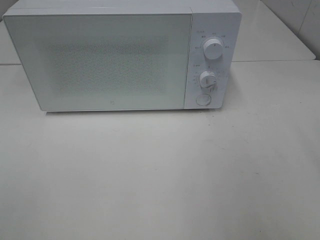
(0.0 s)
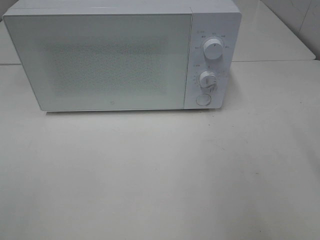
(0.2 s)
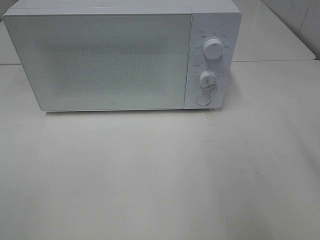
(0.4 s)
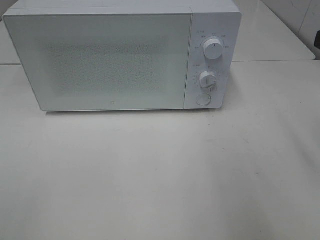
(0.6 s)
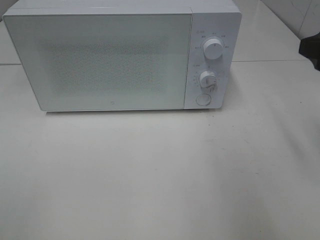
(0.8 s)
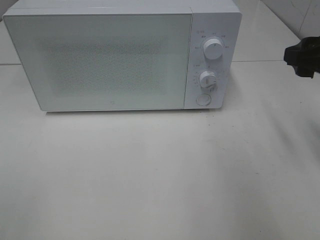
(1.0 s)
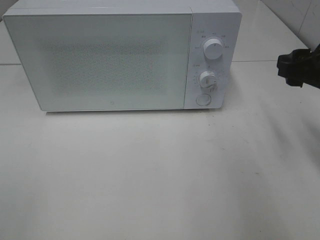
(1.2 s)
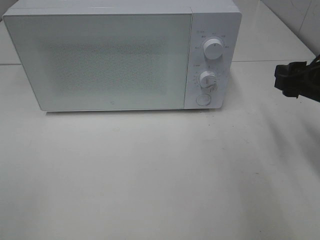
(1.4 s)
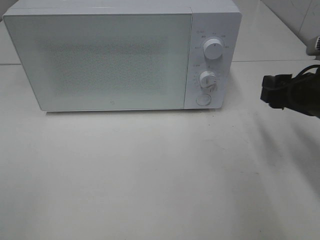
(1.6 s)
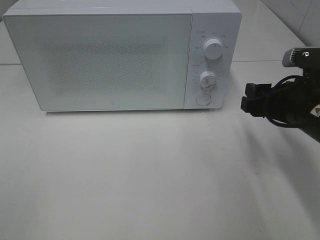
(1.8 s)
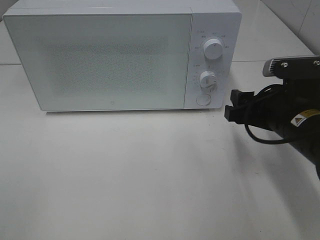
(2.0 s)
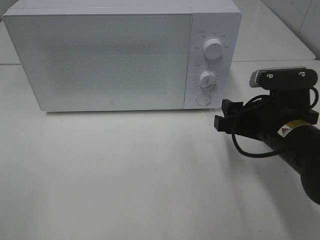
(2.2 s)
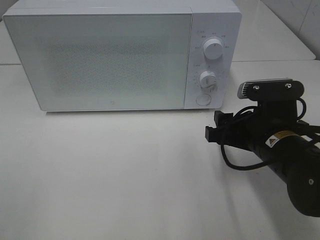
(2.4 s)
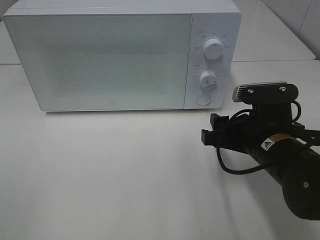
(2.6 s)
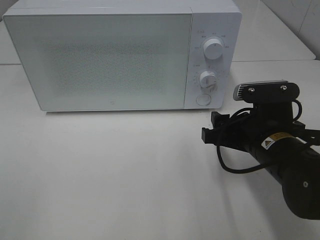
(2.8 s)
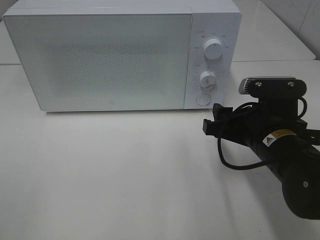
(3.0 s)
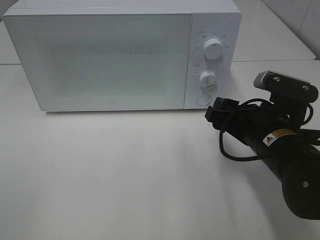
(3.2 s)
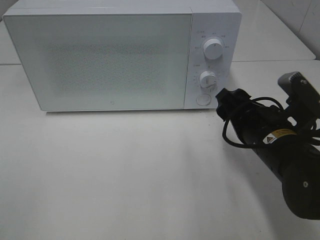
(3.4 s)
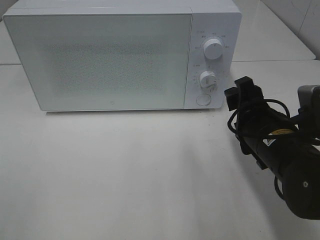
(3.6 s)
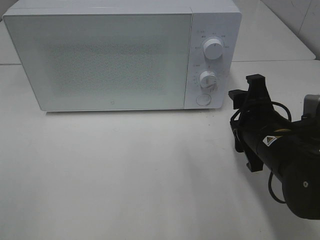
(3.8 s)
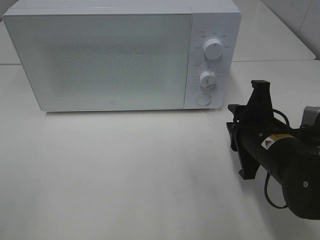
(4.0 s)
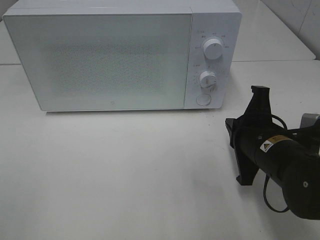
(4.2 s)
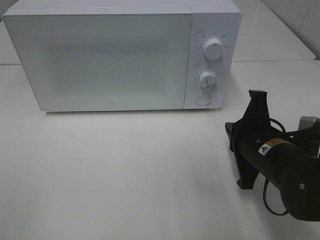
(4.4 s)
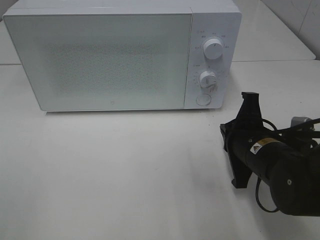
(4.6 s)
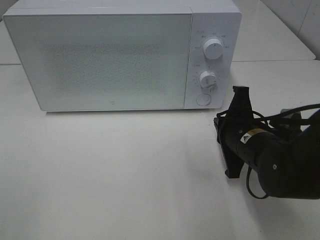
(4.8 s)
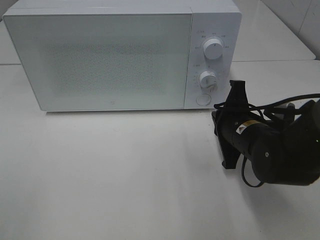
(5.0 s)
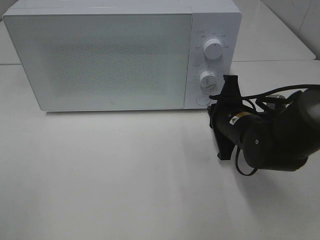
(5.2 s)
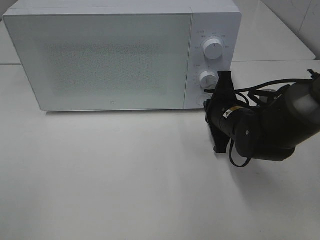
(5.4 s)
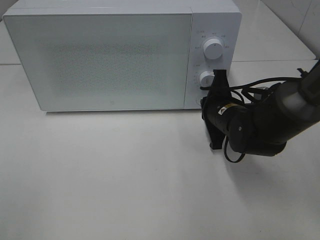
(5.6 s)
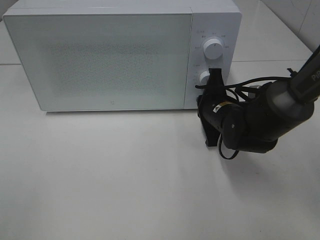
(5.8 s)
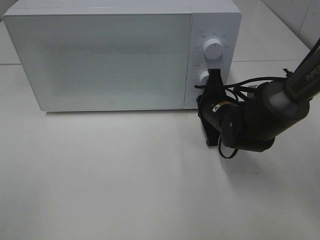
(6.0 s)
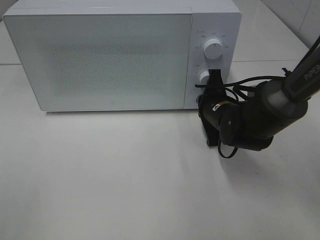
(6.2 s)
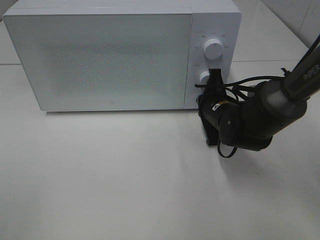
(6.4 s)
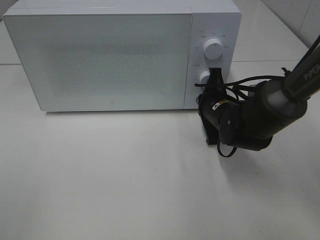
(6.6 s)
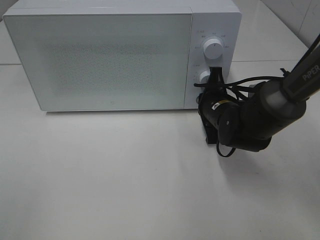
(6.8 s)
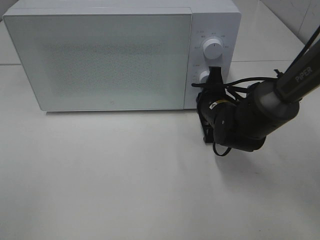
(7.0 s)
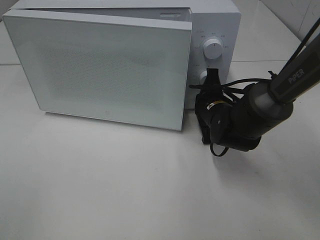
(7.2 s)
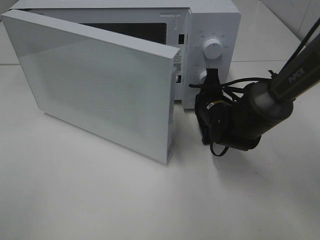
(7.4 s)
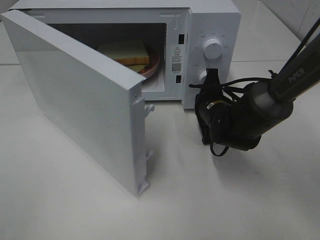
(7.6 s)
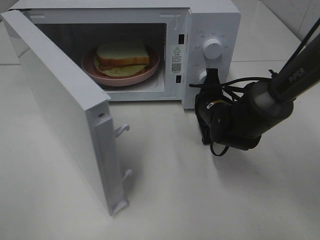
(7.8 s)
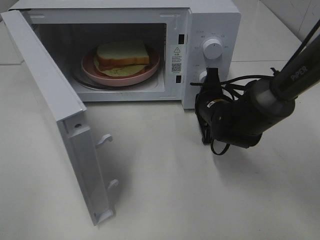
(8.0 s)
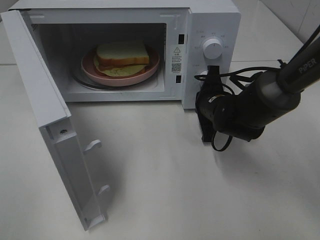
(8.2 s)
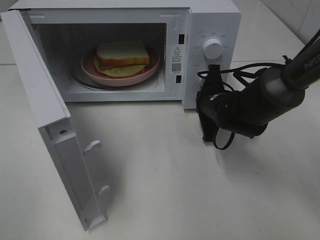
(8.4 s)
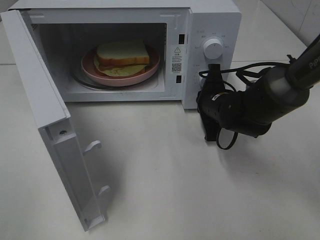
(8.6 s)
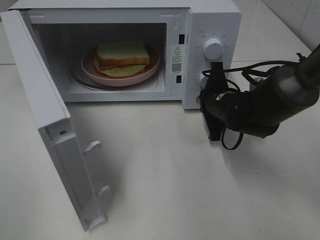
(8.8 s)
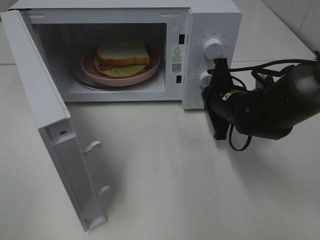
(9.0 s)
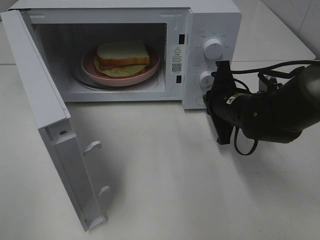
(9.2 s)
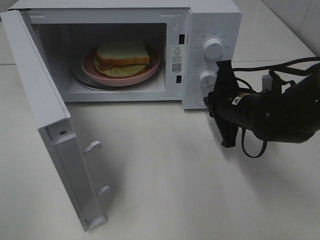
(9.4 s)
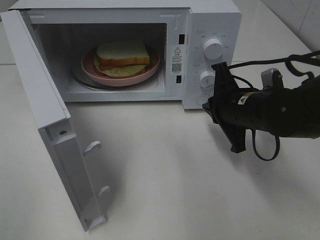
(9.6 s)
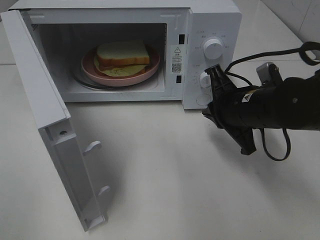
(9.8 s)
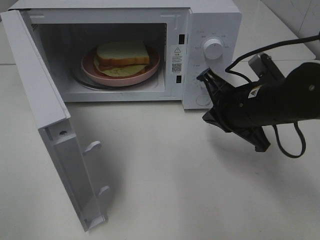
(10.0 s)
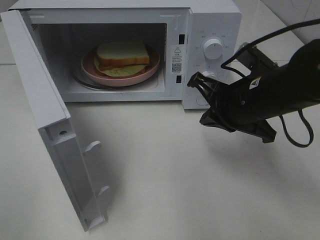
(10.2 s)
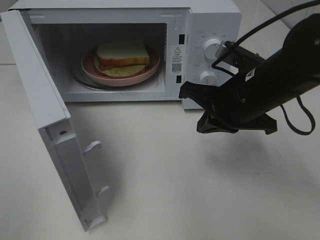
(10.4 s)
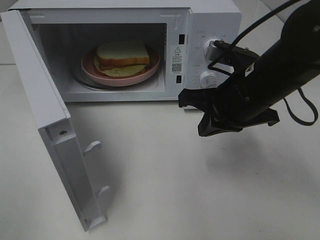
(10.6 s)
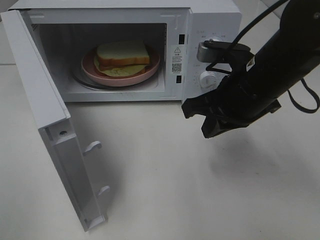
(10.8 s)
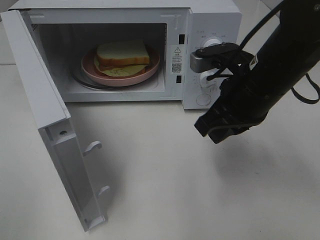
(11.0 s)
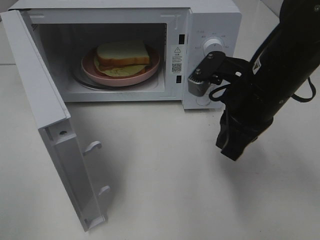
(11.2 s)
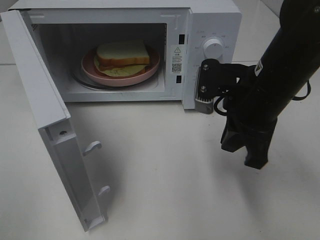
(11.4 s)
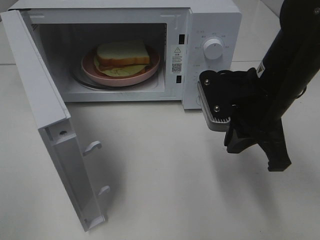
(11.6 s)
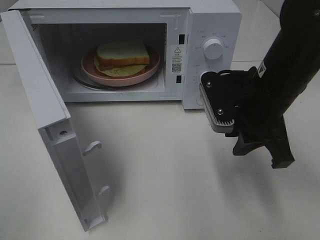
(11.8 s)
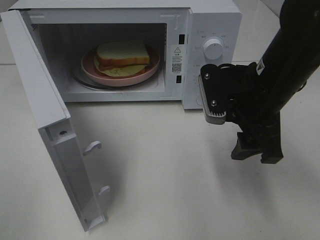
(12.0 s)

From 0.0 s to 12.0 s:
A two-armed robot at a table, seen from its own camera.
Task of the whole recording: Heat Sandwich.
Step, from 0.0 s to 9.4 s: Right hand: press the switch.
From 0.0 s to 1.6 s: The right gripper goes roughly 20 cm downward and forward.
From 1.6 s to 3.0 s: The right gripper travels to the left by some 10 cm.
From 3.0 s to 4.4 s: The right gripper closes.
From 4.4 s to 6.0 s: The right gripper heads forward, covering roughly 10 cm.
From 9.0 s to 10.4 s: The right gripper shifts about 10 cm upward and backward.
From 10.4 s to 12.0 s: The right gripper opens its fingers.

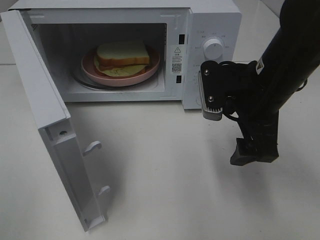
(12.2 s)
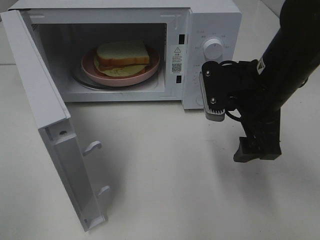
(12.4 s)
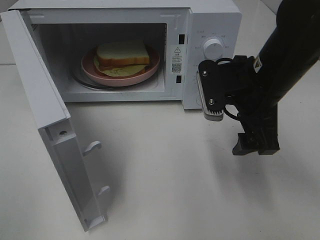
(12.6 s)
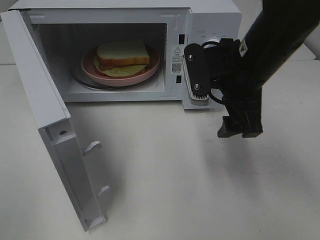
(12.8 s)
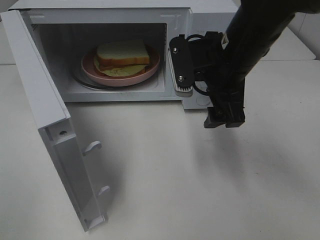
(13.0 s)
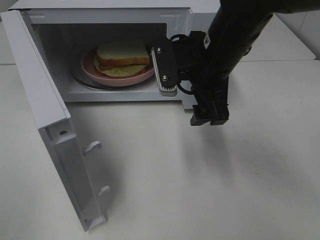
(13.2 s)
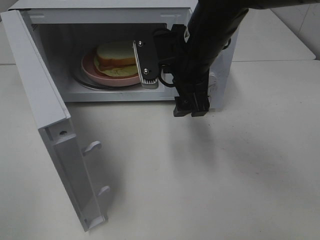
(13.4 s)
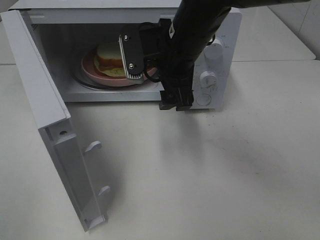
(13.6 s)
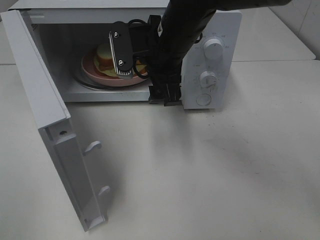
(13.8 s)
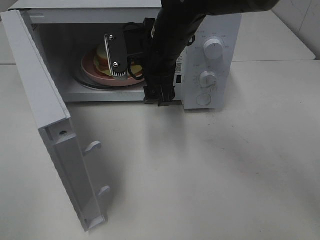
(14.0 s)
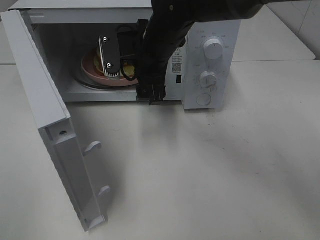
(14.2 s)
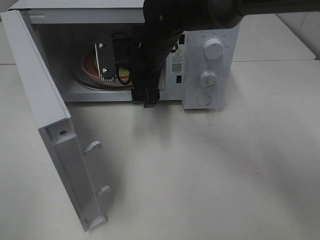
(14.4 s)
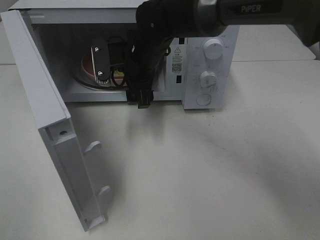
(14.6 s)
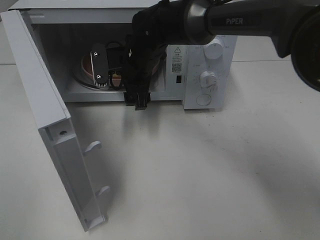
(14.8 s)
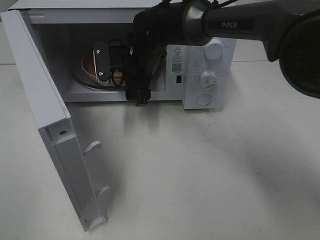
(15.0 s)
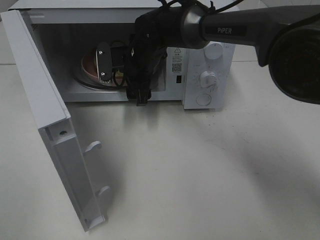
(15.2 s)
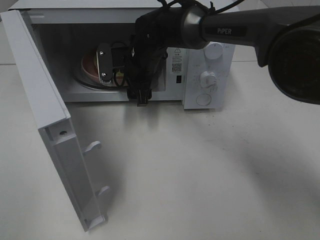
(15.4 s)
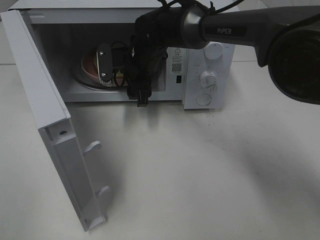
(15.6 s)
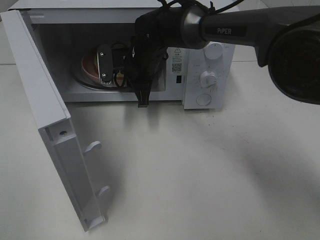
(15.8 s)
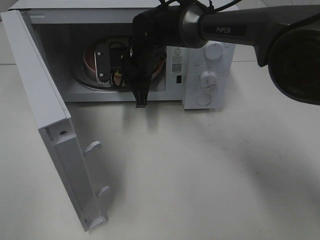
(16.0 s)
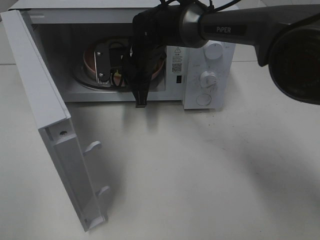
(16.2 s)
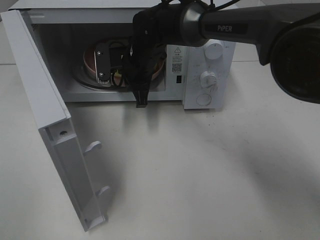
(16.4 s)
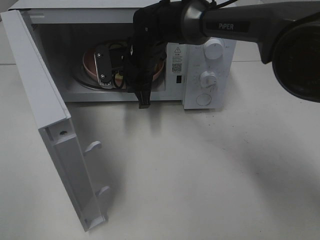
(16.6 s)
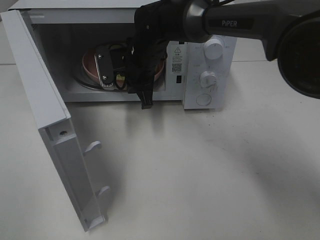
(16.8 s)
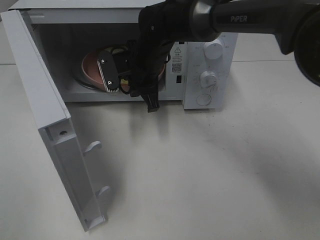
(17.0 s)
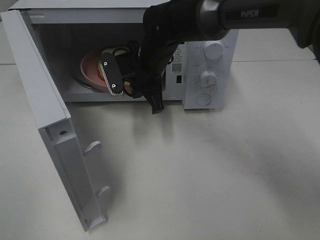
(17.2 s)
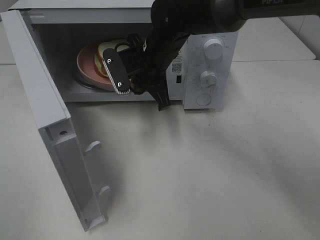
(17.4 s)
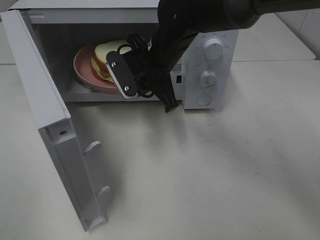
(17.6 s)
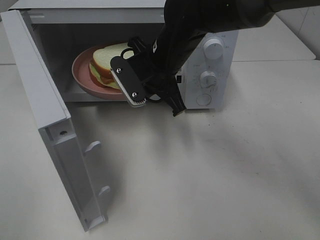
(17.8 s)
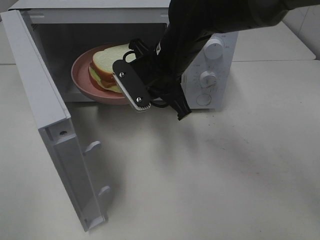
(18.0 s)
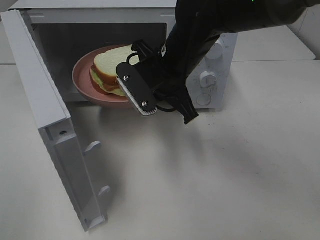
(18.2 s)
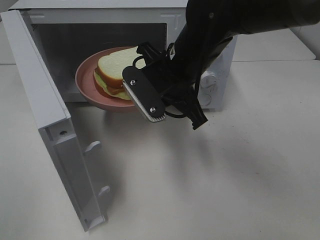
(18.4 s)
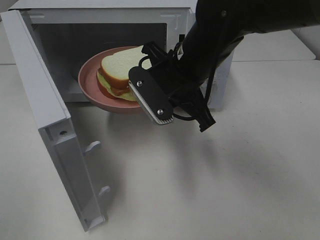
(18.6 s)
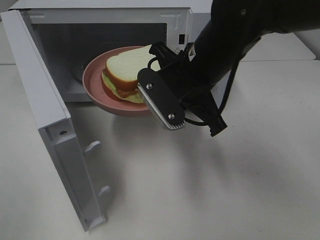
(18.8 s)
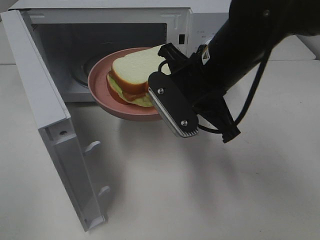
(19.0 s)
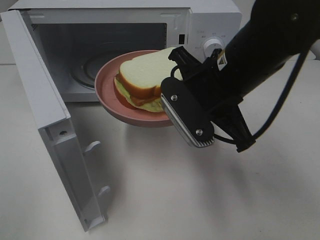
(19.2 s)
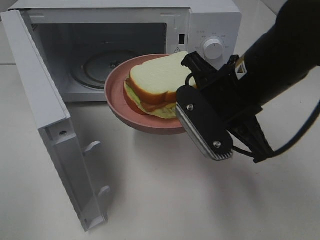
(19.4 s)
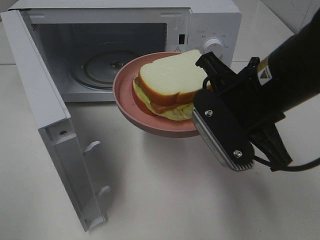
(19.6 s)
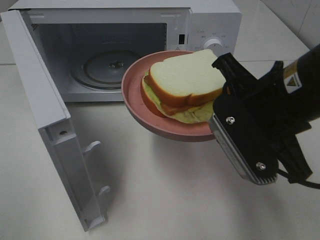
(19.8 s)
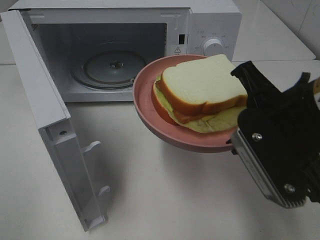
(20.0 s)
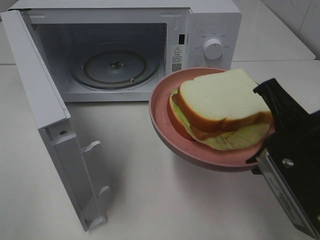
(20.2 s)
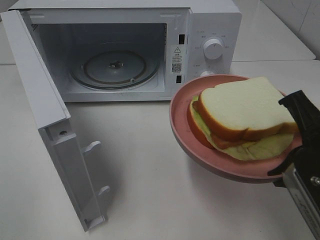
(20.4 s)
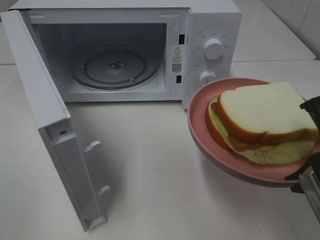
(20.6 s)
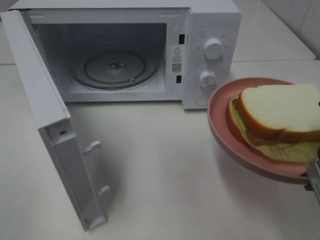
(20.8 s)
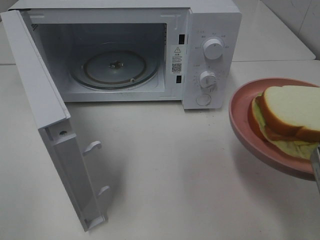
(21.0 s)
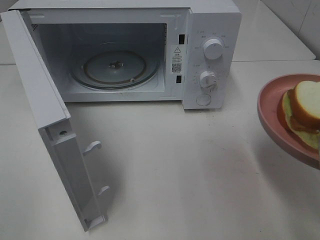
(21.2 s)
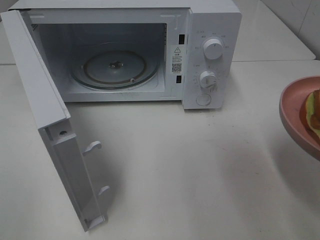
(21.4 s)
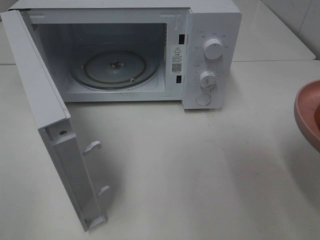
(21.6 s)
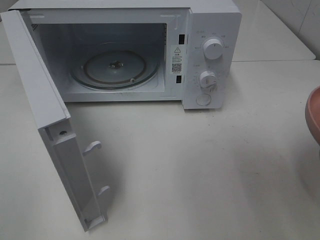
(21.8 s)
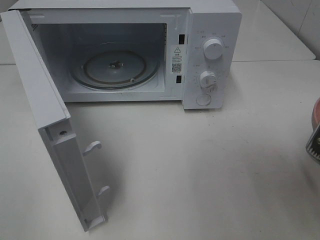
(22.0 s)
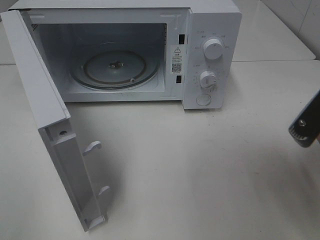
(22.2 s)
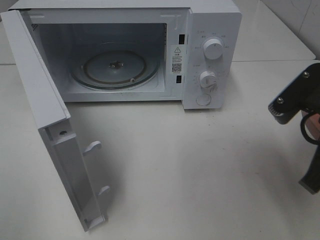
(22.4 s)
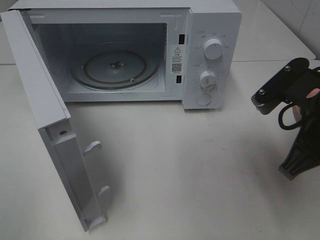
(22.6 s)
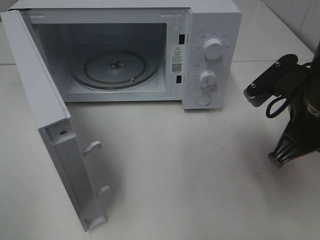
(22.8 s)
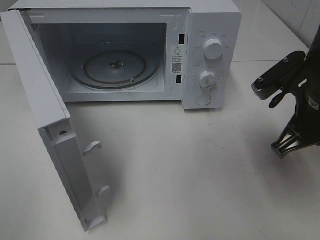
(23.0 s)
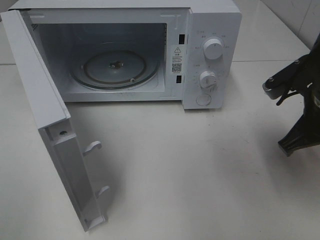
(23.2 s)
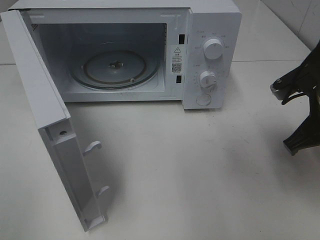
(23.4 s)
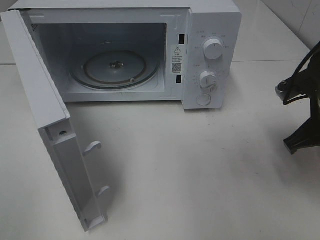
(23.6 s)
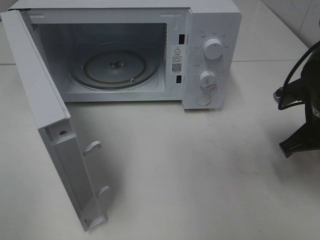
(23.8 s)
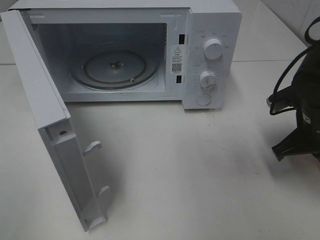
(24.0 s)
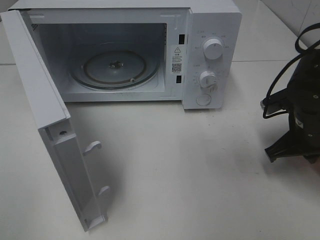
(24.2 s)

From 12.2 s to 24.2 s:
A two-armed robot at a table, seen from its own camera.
Task of the whole recording: Heat Sandwich.
Step, from 12.2 s to 16.4 s: Right hand: grab the plate with the sandwich.
From 12.2 s to 13.8 s: The right gripper shifts some 15 cm to the left and forward.
From 13.8 s to 15.2 s: The right gripper heads forward and downward, covering roughly 10 cm.
From 15.2 s to 16.6 s: The right gripper closes up.
From 16.6 s to 18.2 s: The right gripper goes roughly 15 cm backward, to the right and upward.
From 18.2 s to 19.8 s: The right gripper shifts roughly 15 cm backward and to the right.
From 19.8 s to 21.2 s: The right gripper heads to the right and backward, covering some 10 cm.
From 21.2 s to 22.6 s: The right gripper travels forward by approximately 10 cm.
From 22.6 s to 24.2 s: The right gripper moves downward, forward and to the right, roughly 15 cm.
